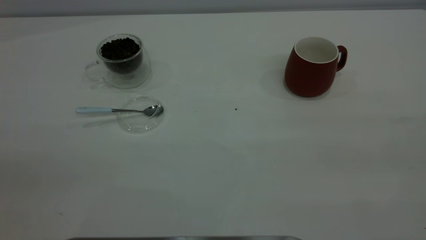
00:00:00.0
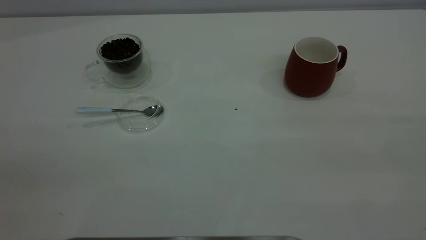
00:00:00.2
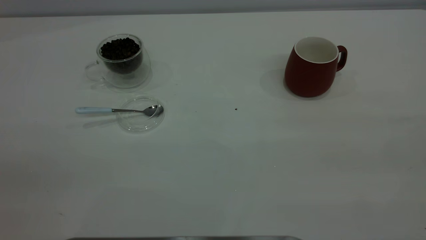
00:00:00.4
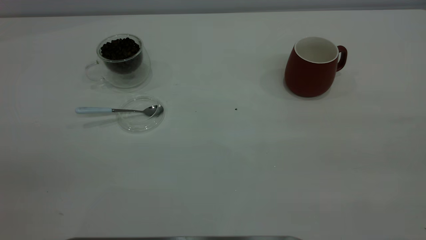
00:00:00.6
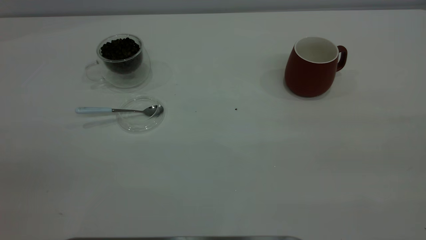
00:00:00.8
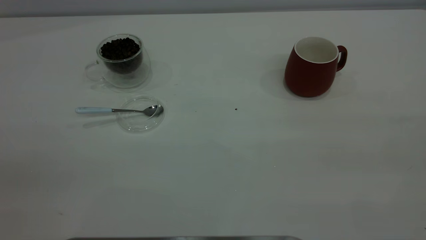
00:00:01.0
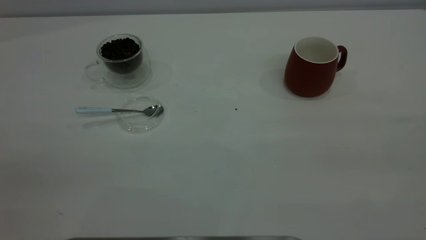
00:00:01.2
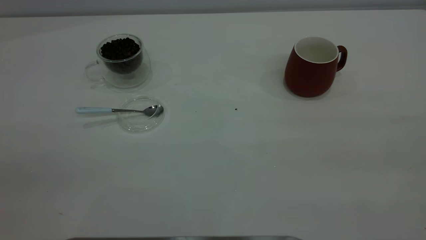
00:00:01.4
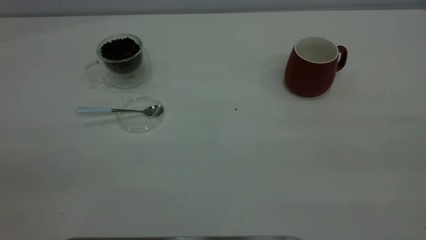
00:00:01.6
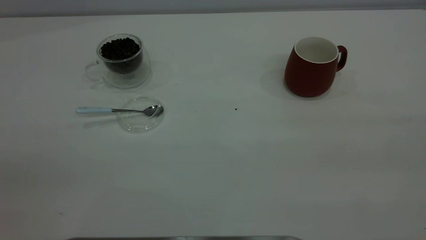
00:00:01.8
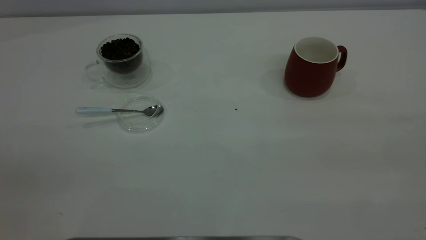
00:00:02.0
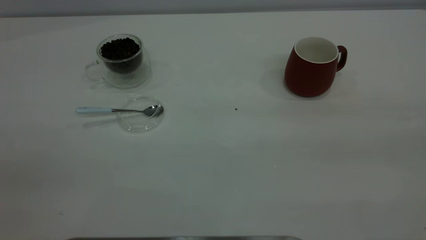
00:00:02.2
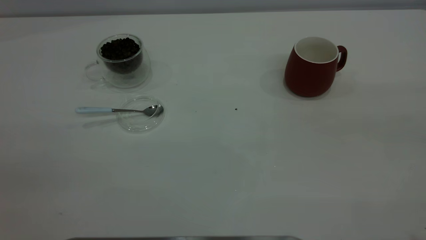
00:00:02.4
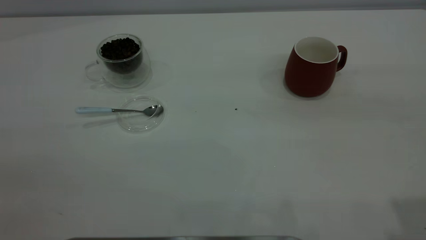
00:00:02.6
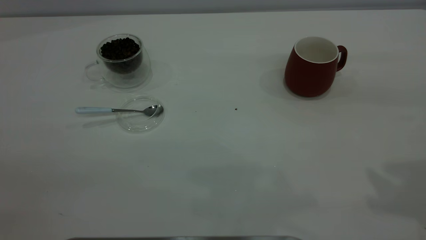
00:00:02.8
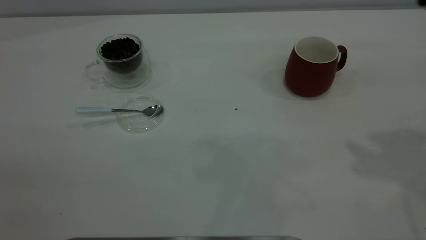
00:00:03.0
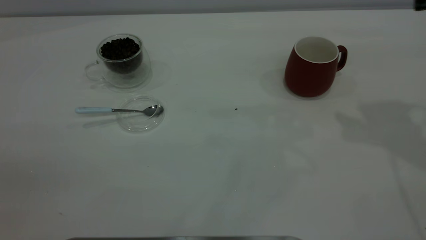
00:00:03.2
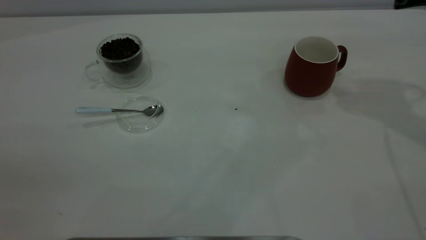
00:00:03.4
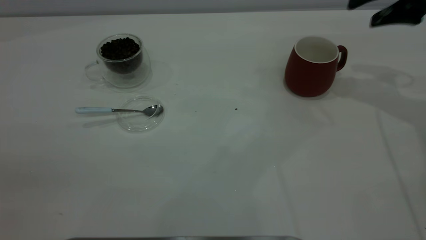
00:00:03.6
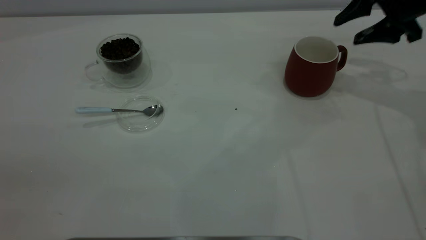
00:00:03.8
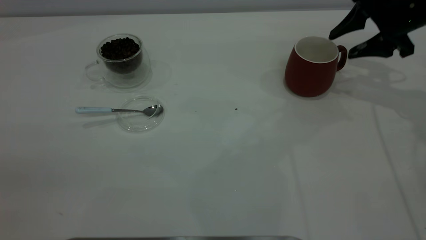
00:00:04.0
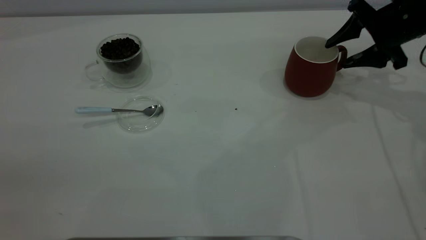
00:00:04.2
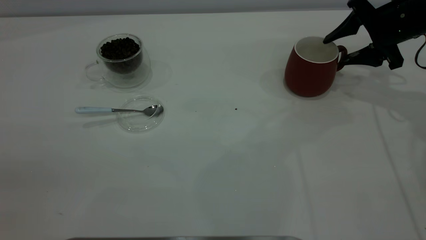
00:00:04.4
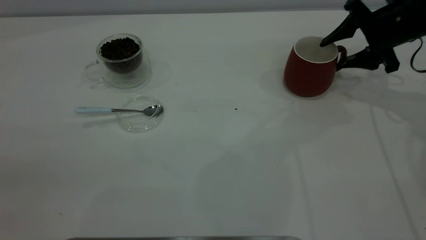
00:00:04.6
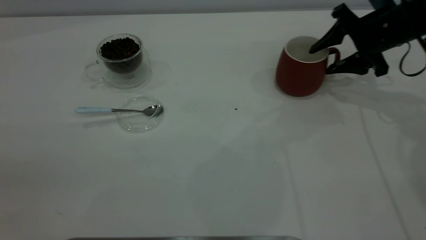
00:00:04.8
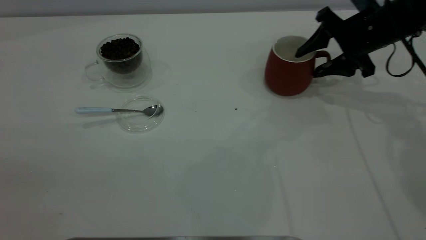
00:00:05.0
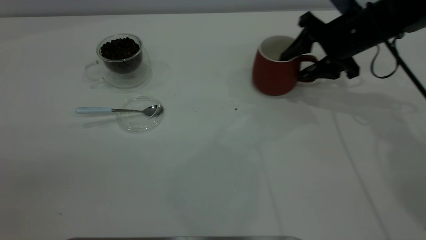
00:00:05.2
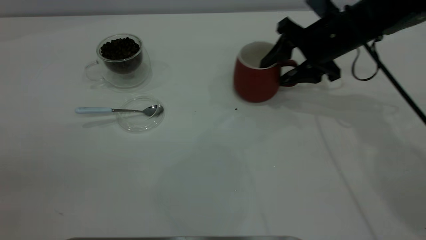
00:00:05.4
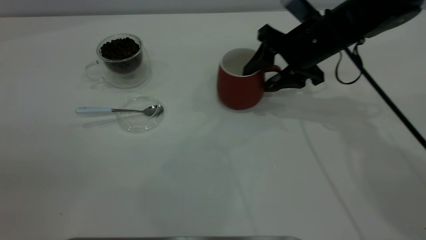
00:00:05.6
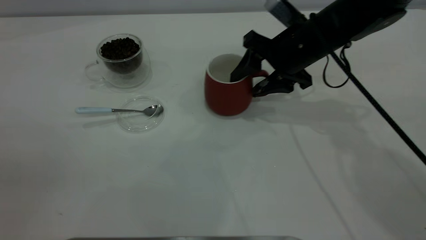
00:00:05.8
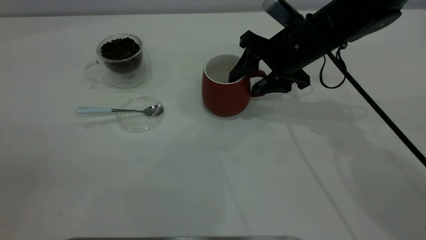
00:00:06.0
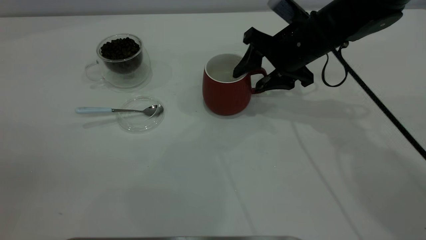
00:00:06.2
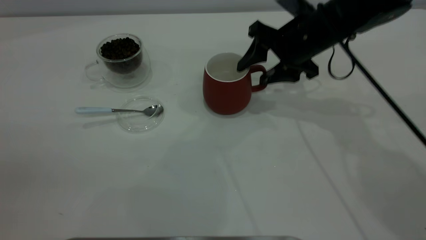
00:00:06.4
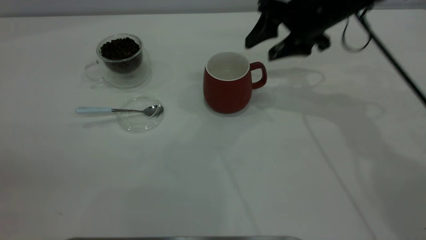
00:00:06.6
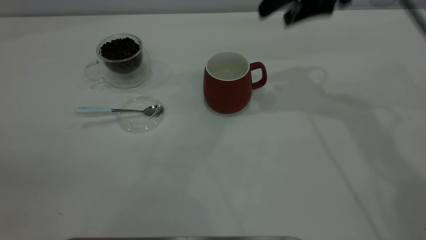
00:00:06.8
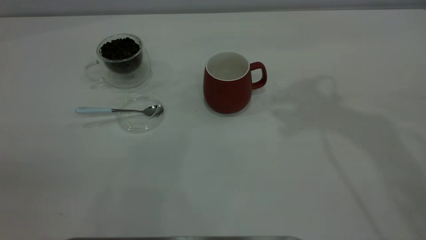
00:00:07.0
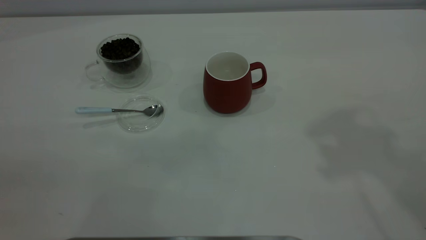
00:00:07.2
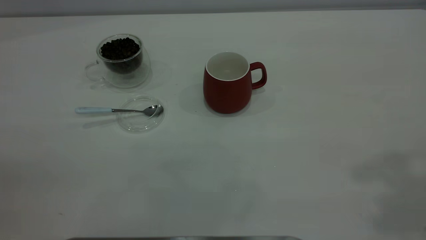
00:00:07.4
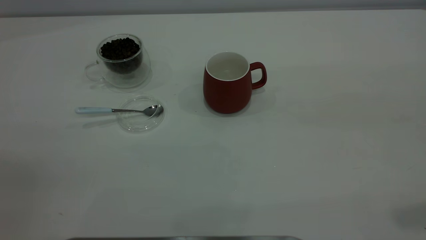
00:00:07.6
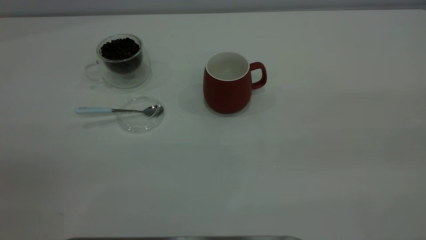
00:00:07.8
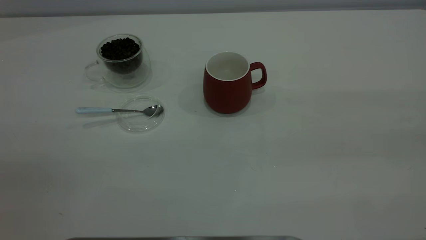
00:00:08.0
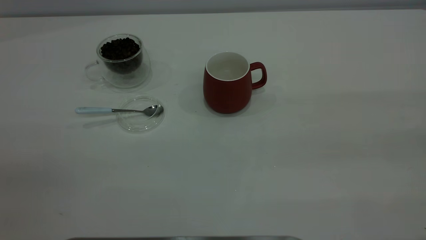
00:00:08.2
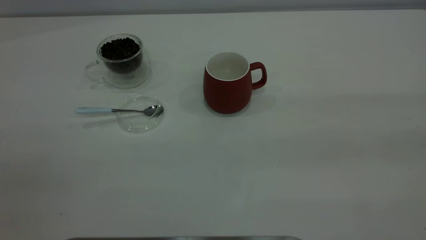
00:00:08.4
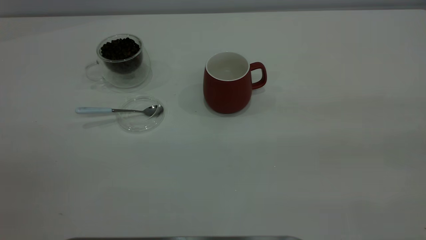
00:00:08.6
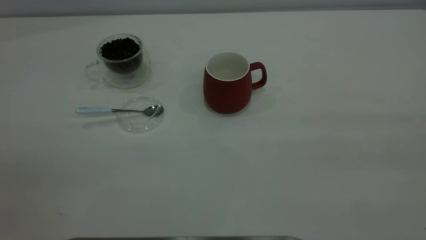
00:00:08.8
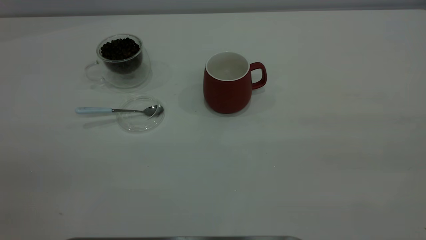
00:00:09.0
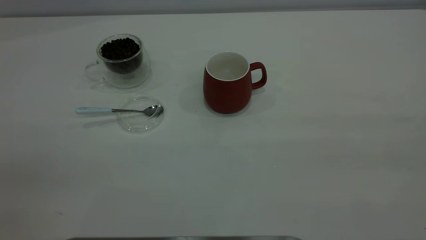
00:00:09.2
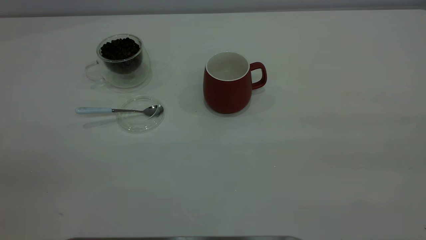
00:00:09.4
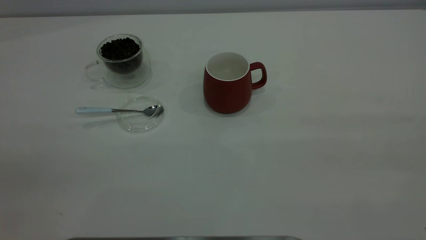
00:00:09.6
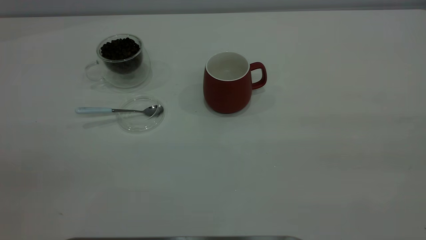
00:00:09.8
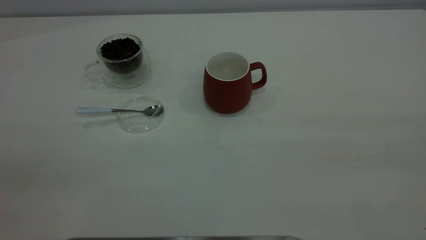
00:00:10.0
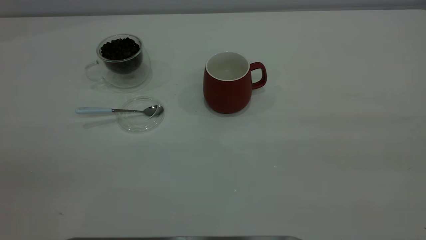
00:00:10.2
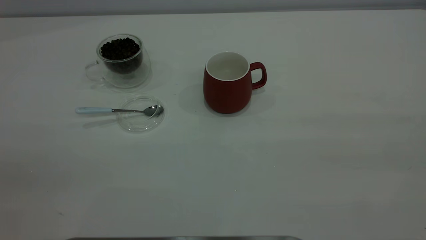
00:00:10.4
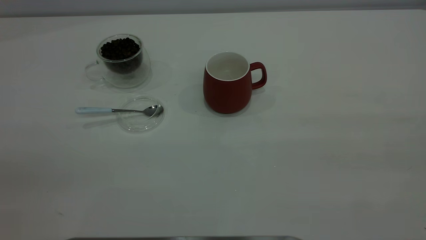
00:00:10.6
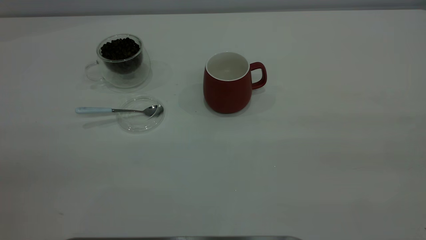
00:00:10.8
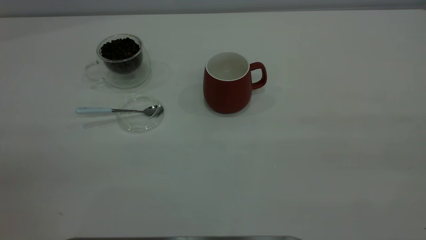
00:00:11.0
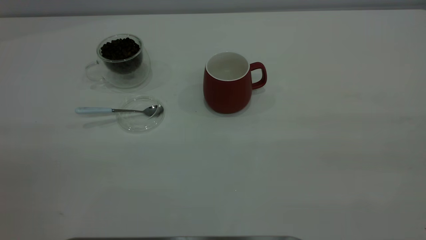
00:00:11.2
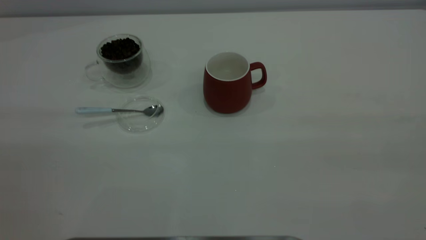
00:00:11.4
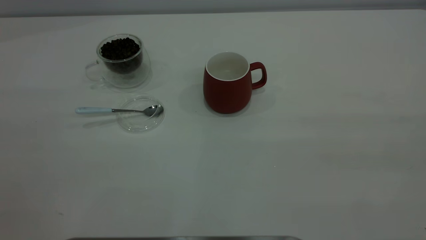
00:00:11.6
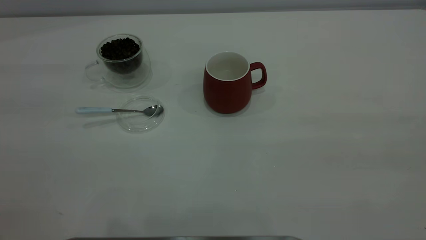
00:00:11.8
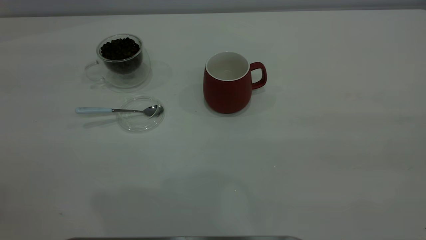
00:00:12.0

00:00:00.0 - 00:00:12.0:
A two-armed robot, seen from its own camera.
Task of the whole recording: the right gripper place the red cup in the center of the table, the left gripper take the blue spoon from the cup lid and scoop out the coffee beans from the coffee cup and put them into the red cup, the left gripper put the spoon back into the cup lid.
Step, 00:00:00.0 - 00:00:06.4: Move the cup to the center of view.
00:00:00.0 - 00:00:01.6: Both grippers stay about where they are.
00:00:03.0 - 00:00:04.4: The right gripper is displaced downward and forward by some 25 cm.
00:00:04.4 - 00:00:06.0: The right gripper moves to the left, approximately 15 cm.
00:00:06.0 - 00:00:07.6: The right gripper is displaced backward, upward and to the right by about 40 cm.
00:00:09.0 - 00:00:10.4: Both grippers stay about where they are.

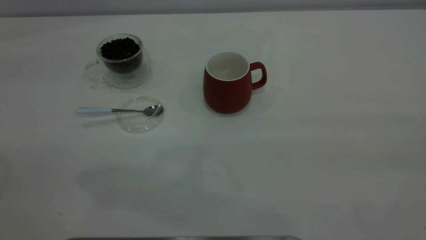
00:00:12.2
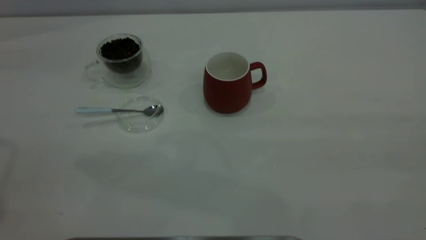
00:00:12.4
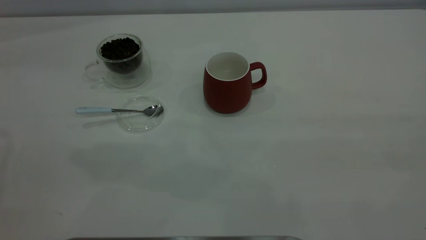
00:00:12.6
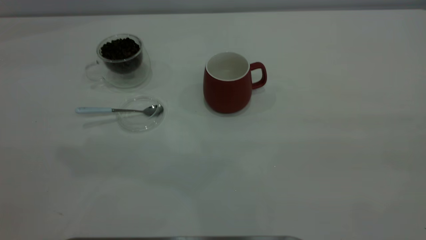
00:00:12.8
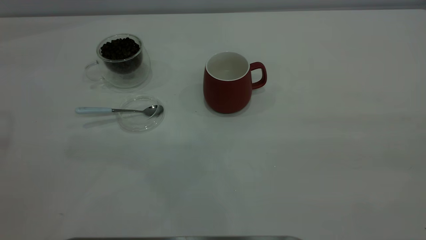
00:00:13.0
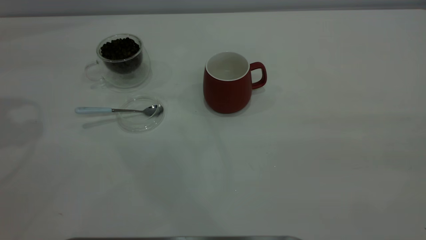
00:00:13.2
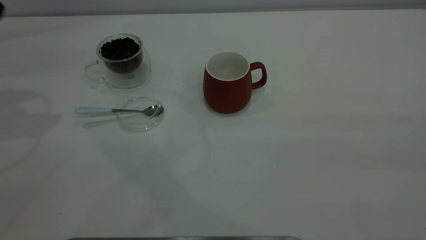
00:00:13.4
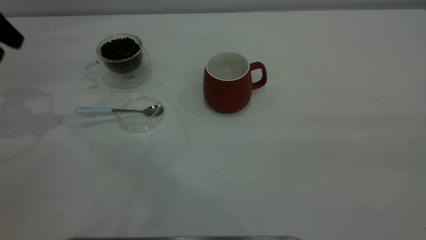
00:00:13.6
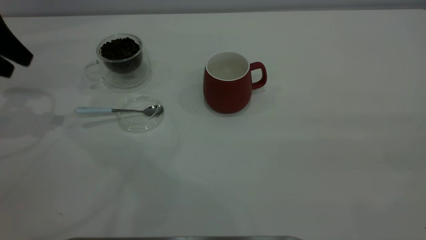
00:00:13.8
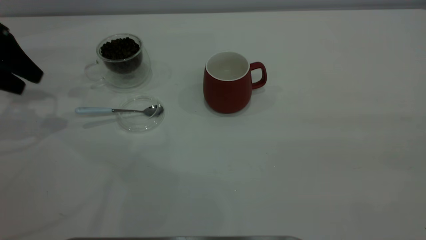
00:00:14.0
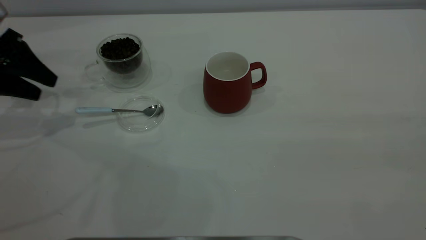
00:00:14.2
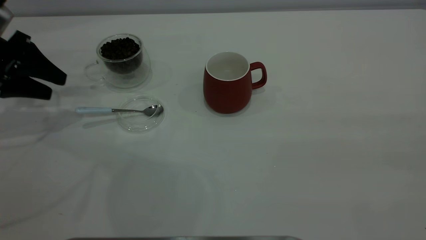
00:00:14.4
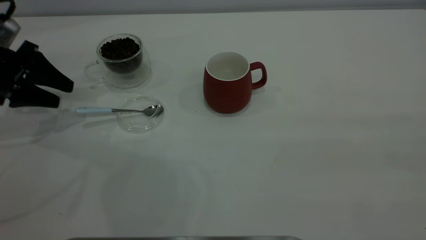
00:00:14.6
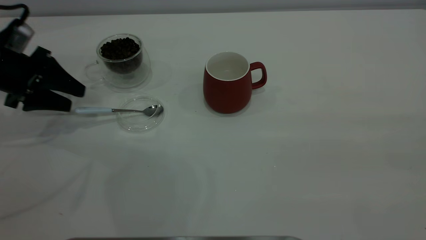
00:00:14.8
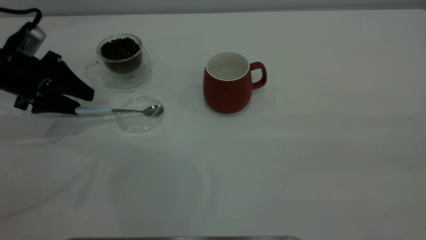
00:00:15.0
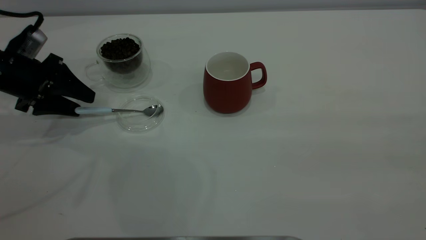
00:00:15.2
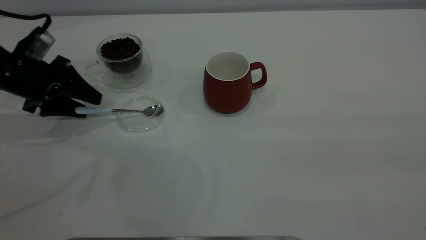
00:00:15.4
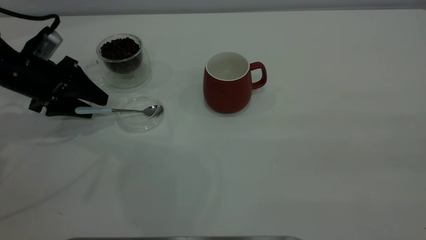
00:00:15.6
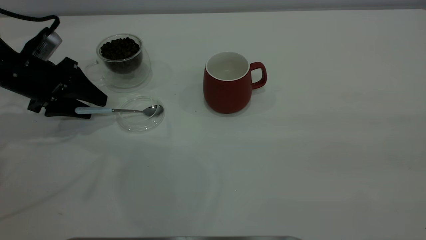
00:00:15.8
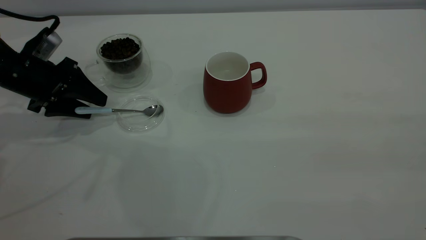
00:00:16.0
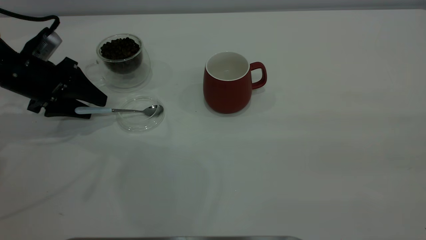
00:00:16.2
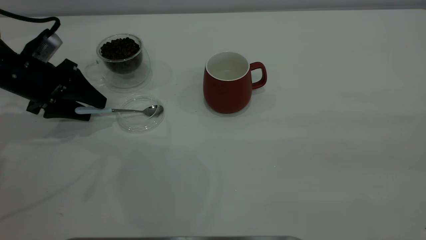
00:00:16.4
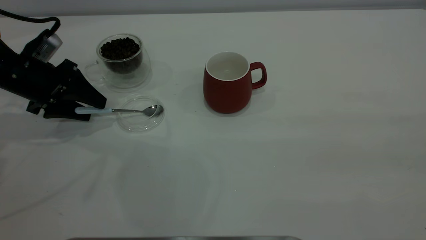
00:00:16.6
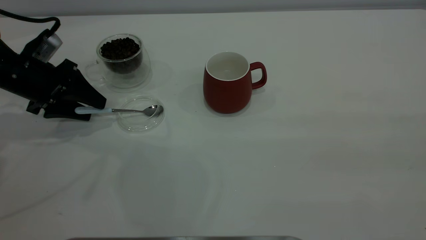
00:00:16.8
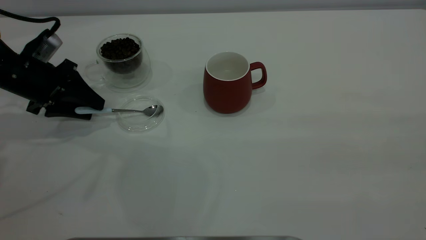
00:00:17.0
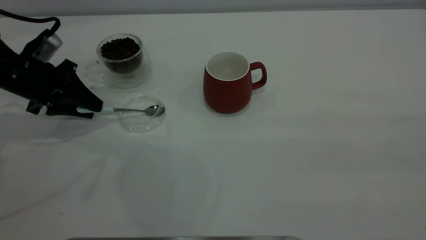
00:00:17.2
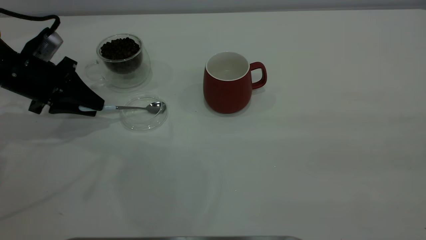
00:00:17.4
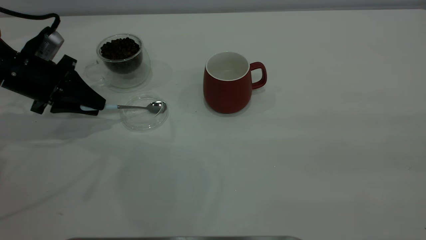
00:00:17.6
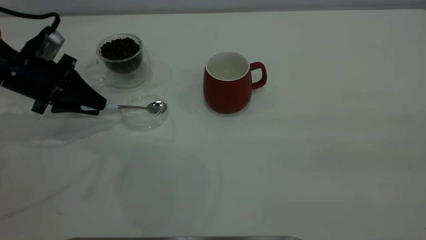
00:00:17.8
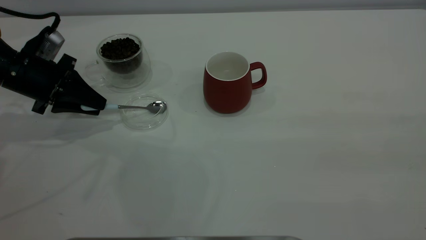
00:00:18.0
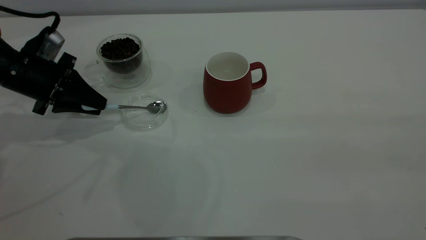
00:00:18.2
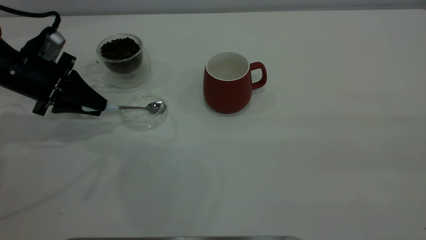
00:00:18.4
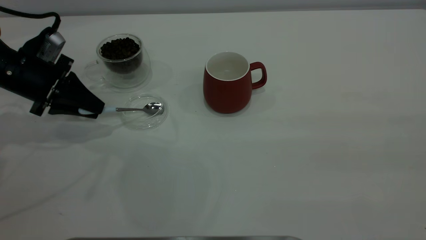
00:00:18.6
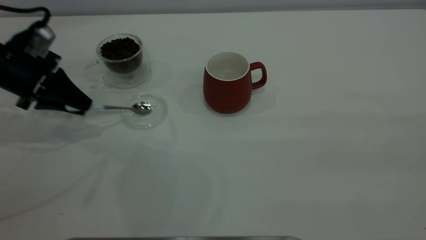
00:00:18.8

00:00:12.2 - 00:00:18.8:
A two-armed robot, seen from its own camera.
Task of the whole recording: the right gripper place the red cup in the center of the table, the left gripper take the blue spoon from the cup lid and scoop out the coffee beans from the coffee cup and put them into the red cup, the left gripper put the spoon back into the cup lid.
00:00:12.2 - 00:00:13.8: The left gripper shifts about 30 cm downward and forward.
00:00:13.8 - 00:00:15.4: The left gripper heads downward and to the right, covering some 10 cm.
00:00:15.4 - 00:00:17.2: The left gripper closes up.
00:00:17.2 - 00:00:18.8: The grippers stay close to where they were, moving slightly.
